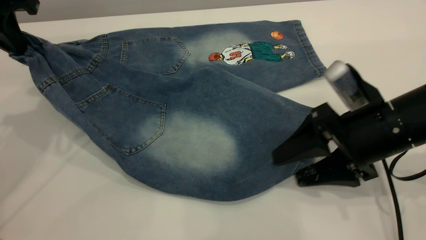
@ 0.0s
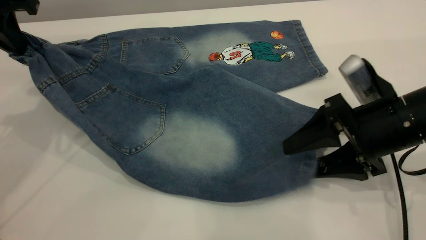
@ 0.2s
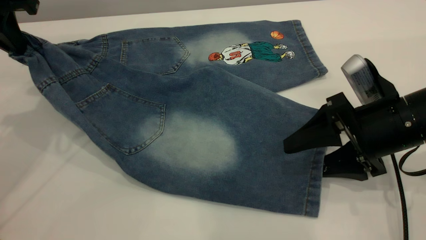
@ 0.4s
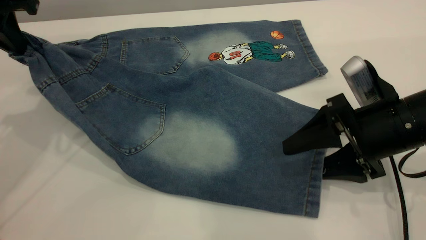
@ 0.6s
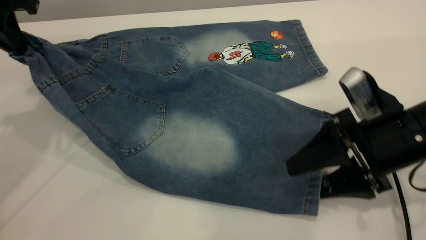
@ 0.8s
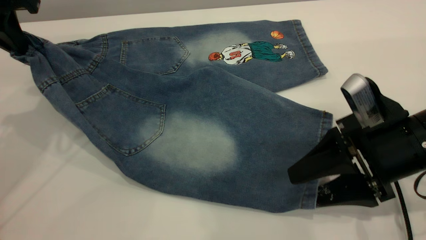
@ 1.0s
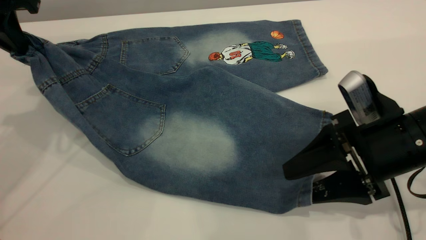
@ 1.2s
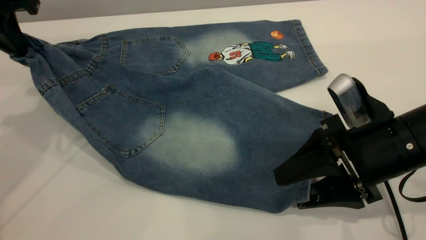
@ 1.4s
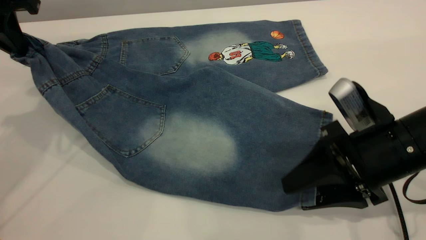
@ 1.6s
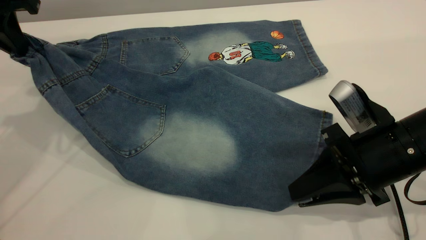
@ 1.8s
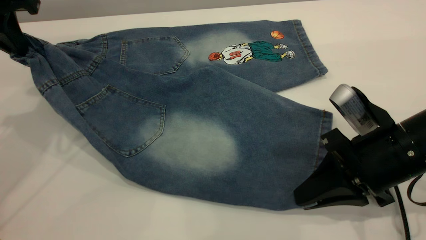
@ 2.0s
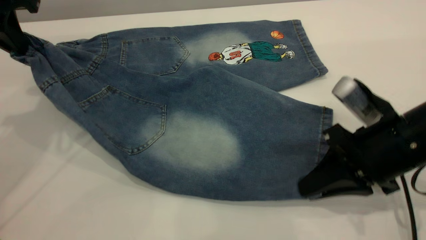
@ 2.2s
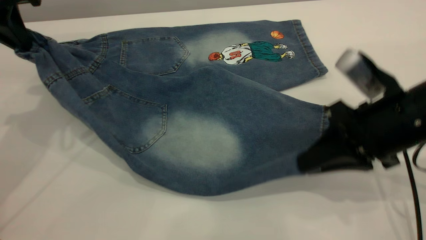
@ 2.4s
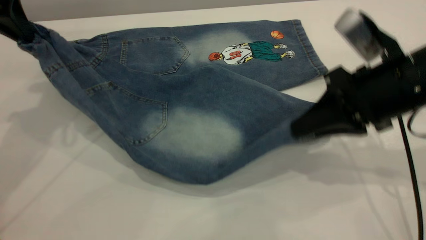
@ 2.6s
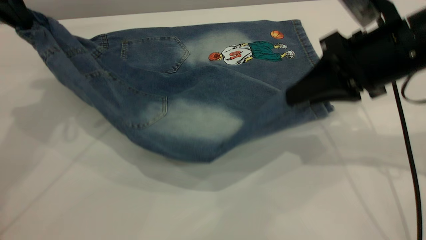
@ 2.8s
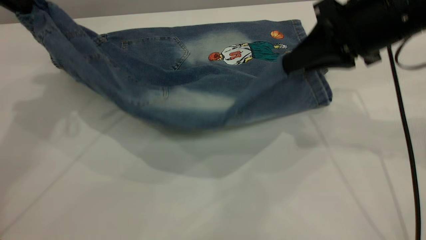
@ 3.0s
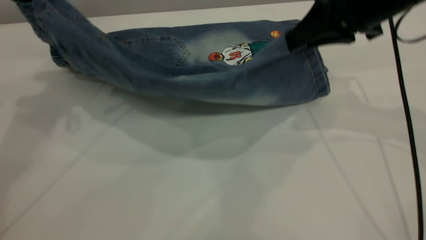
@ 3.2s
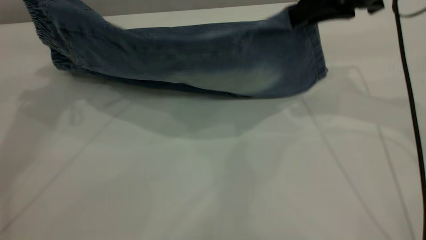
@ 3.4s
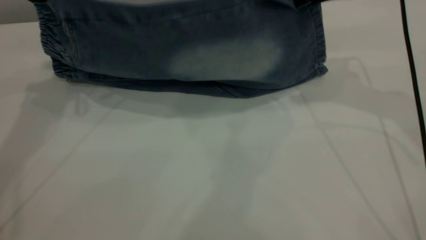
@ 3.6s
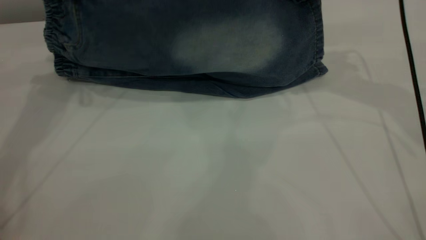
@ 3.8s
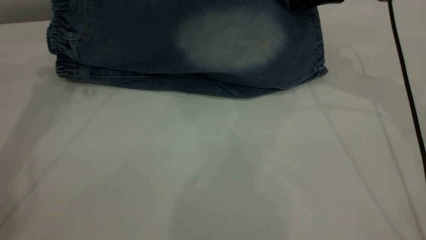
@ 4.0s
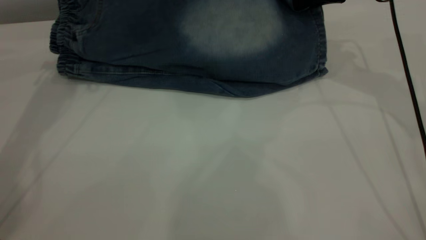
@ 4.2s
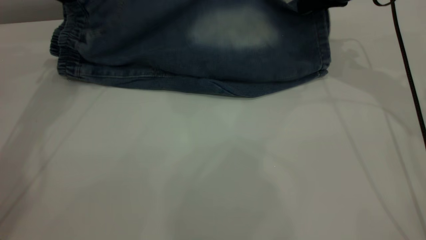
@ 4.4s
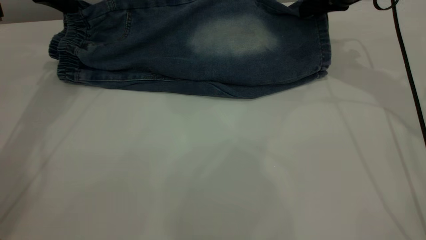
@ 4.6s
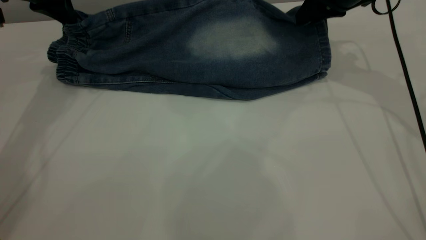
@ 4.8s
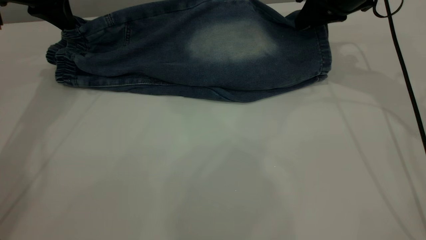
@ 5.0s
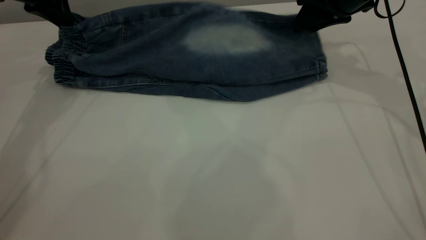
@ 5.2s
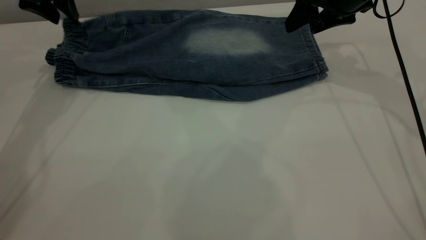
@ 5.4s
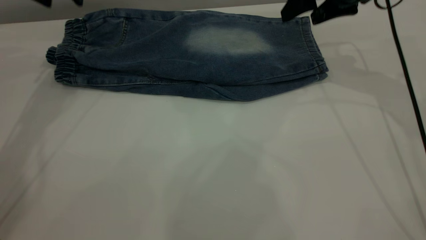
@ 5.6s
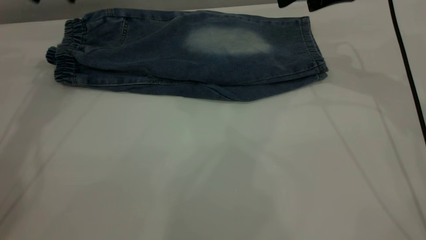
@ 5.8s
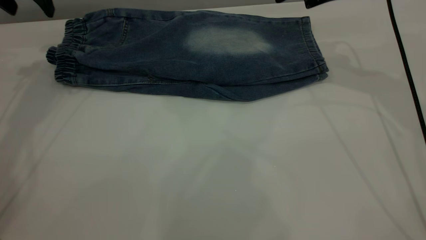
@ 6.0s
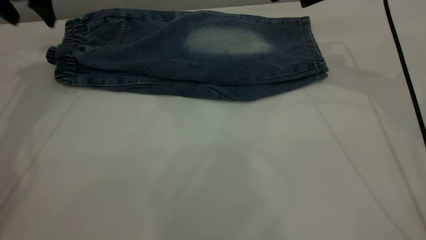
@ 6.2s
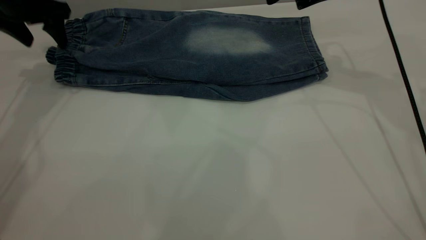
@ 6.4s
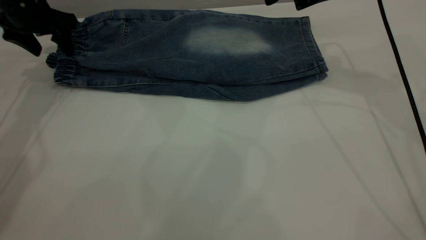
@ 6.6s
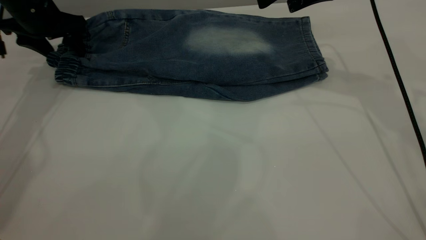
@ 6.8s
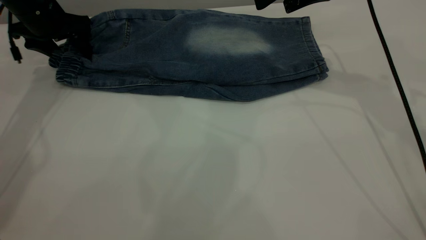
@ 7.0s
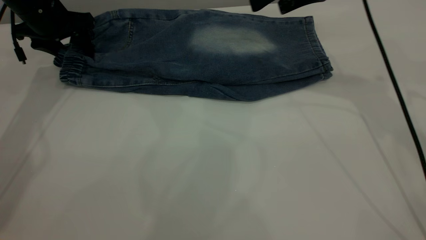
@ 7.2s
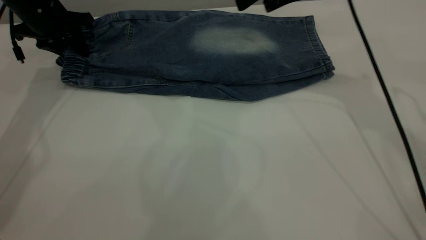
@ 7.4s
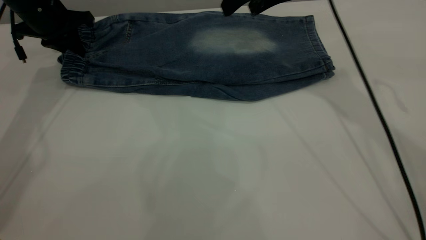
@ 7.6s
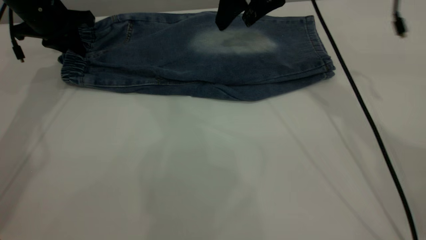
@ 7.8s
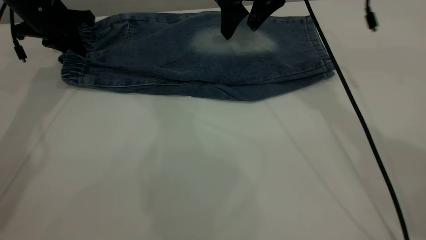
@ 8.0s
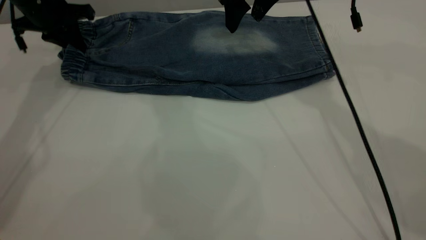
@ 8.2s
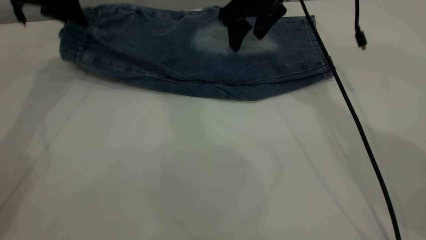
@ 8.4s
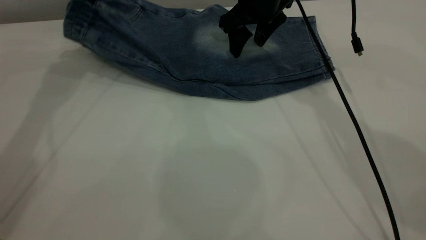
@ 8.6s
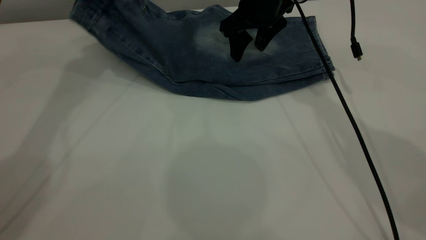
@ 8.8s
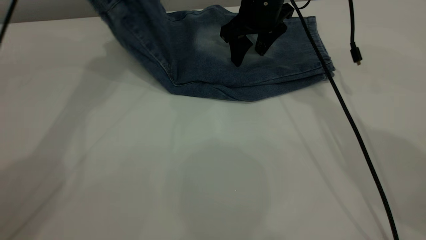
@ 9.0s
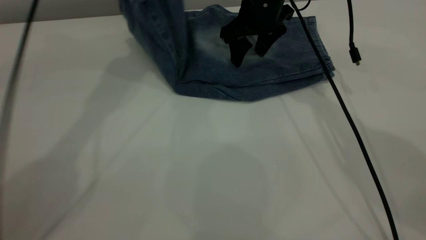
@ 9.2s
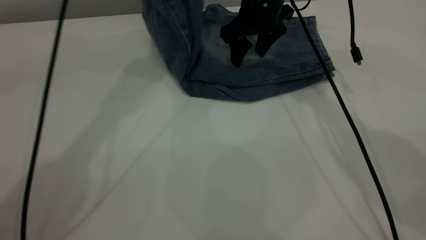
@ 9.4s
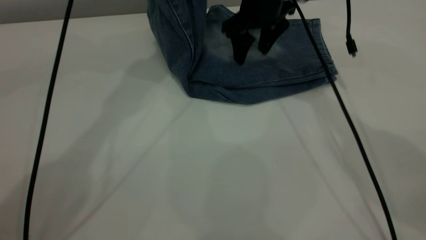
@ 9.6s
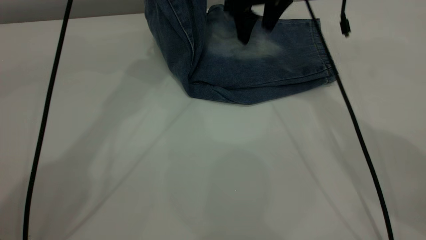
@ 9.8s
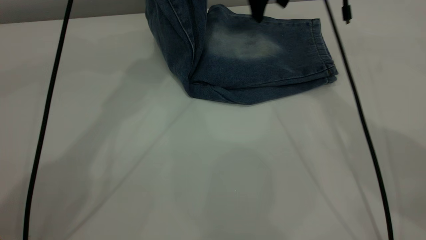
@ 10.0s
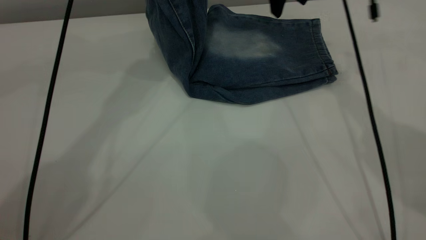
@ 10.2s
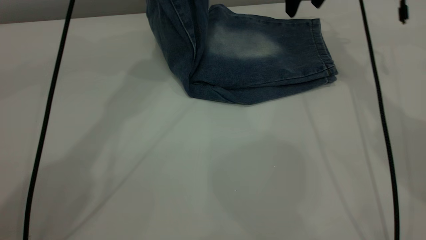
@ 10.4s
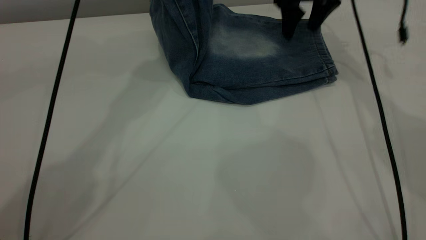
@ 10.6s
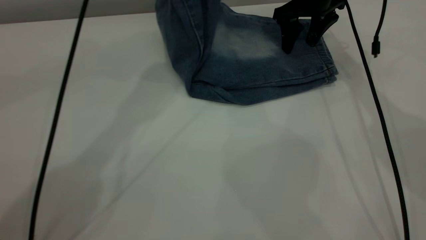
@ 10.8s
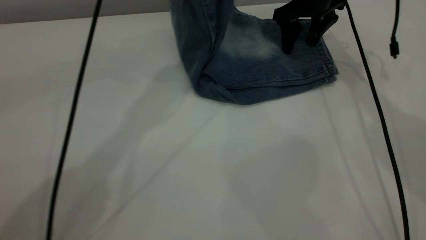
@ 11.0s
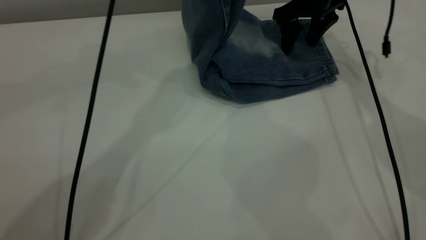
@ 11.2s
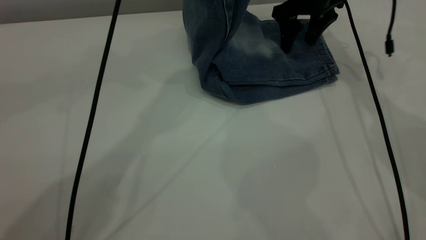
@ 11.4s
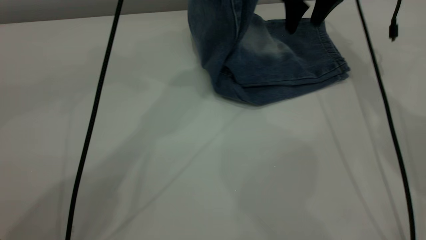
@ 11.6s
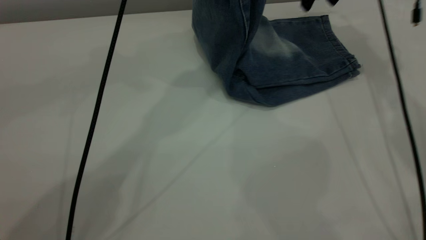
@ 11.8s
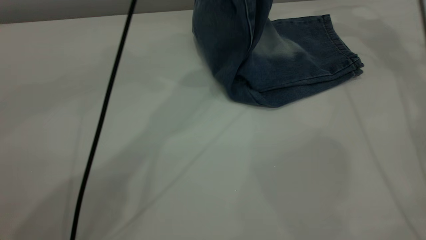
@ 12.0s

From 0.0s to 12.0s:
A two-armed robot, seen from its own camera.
Step, from 0.0s to 5.8s: Fold the bottom of the pants upward.
From 0.0s to 1.6s: The right gripper closes its fingers.
From 1.6s to 3.0s: The right gripper shifts roughly 15 cm upward and forward, and closes up.
From 3.0s to 4.4s: The right gripper goes approximately 15 cm forward; the left gripper moves forward and downward, approximately 15 cm.
From 4.4s to 6.0s: The left gripper opens up; the right gripper opens.
From 6.0s to 7.6s: The left gripper heads downward, covering some 10 cm, and closes up. The right gripper shifts some 10 cm to the left.
From 7.6s to 9.0s: The right gripper shifts approximately 5 cm downward. Meanwhile the left gripper moves upward and to the right, some 20 cm.
From 9.0s to 10.4s: The left gripper is displaced to the right by roughly 10 cm. The right gripper is displaced to the right and upward by roughly 10 cm.
From 10.4s to 12.0s: The left gripper travels to the right by approximately 10 cm. Meanwhile the right gripper heads to the right and upward, covering roughly 10 cm.

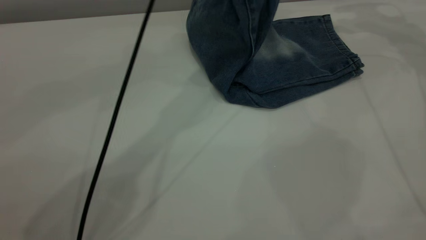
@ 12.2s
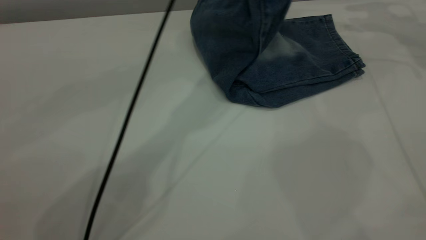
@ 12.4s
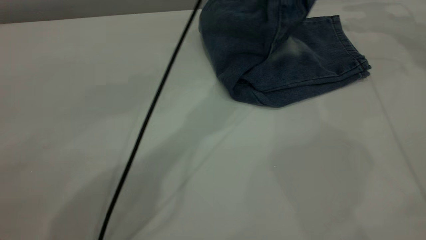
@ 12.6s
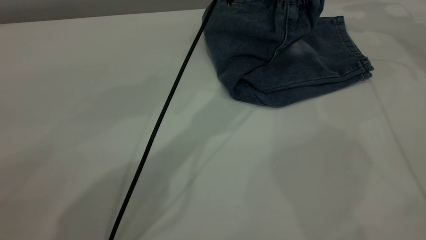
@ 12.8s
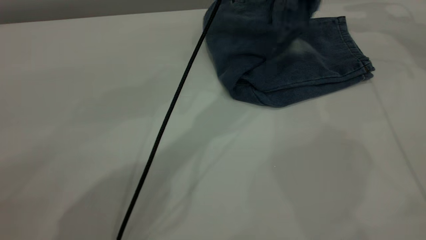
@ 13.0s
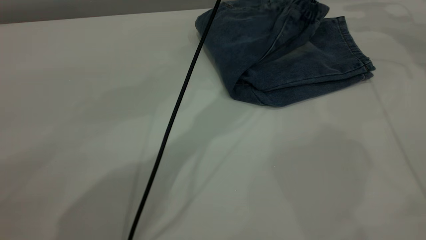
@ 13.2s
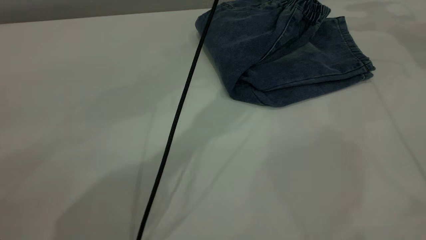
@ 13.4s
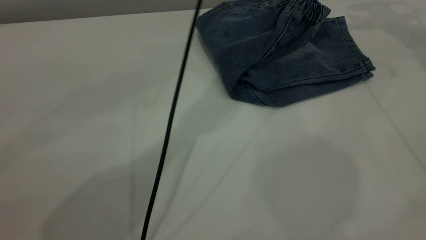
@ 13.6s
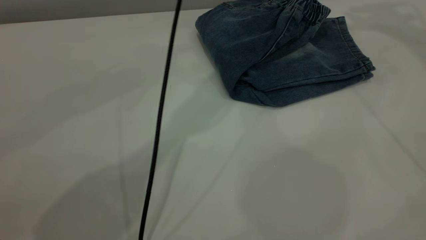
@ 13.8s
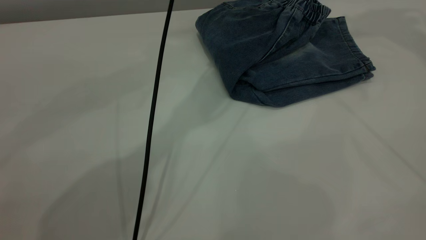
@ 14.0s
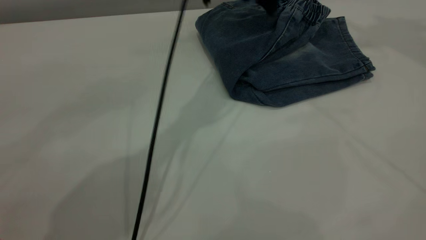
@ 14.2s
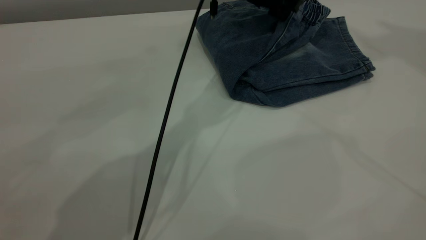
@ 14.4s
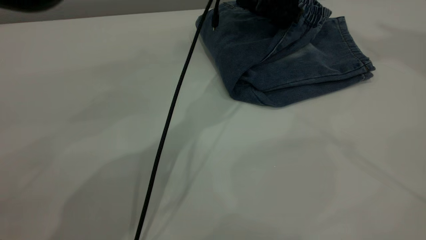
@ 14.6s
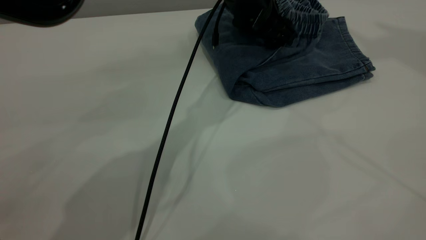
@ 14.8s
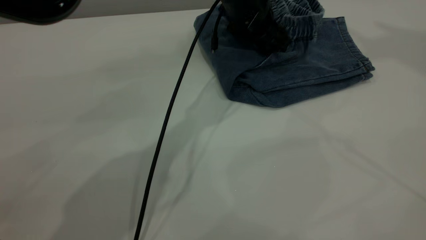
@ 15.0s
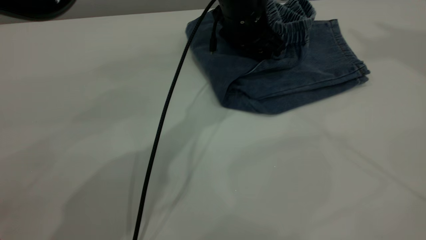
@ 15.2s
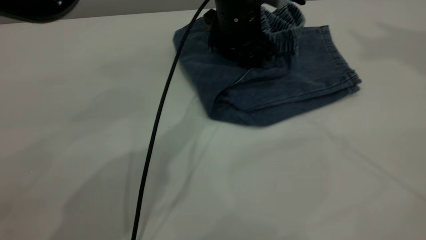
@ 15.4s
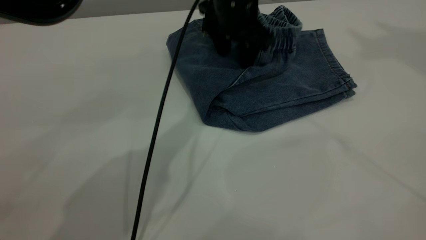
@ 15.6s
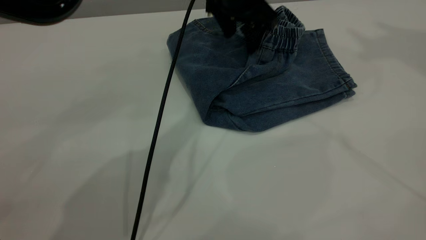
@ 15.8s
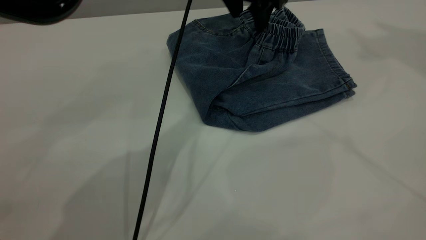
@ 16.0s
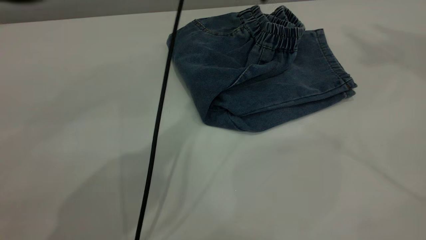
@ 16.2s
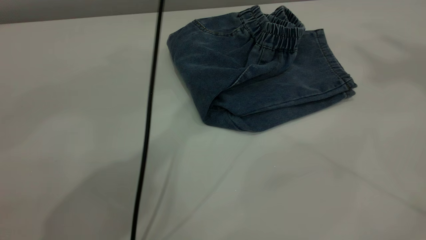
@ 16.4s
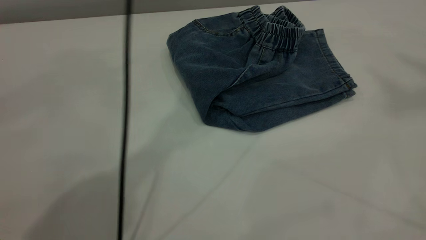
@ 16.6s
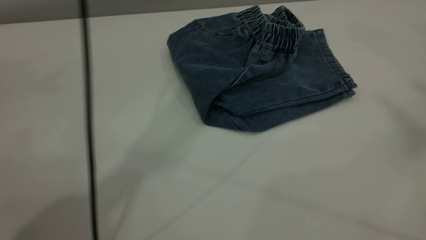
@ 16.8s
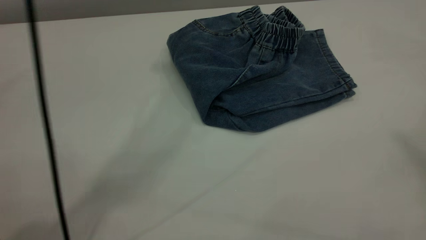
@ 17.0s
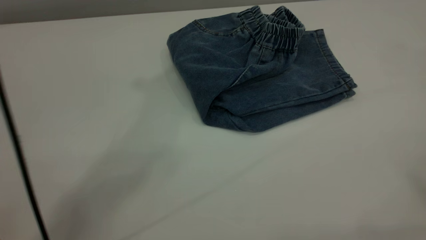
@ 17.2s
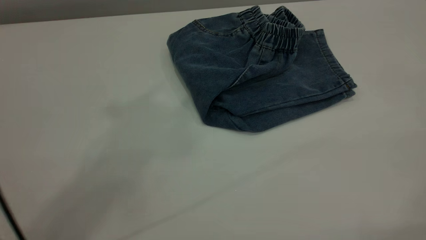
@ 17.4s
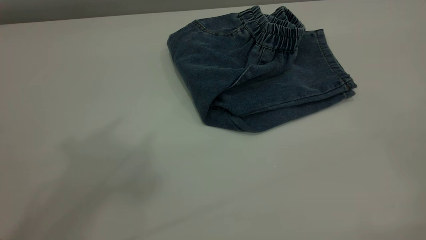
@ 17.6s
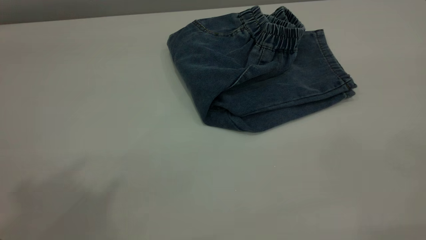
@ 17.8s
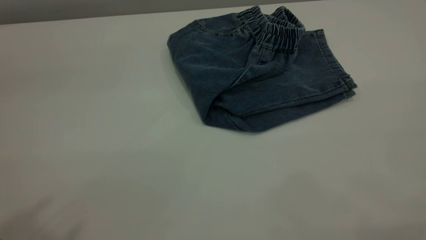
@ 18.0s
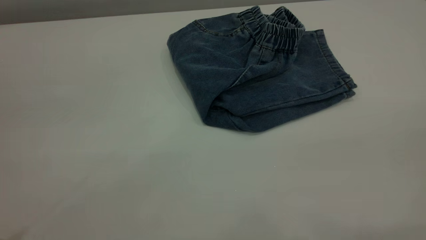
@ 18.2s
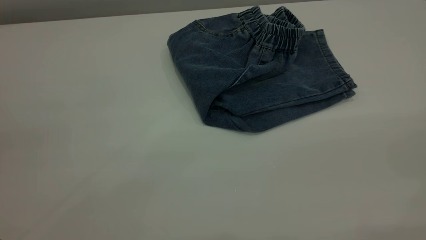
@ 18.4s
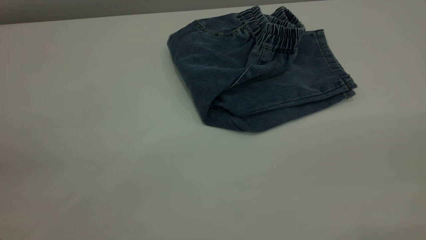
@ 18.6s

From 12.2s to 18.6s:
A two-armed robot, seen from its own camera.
From 12.2s to 13.8s: The left gripper opens up. The right gripper moves upward, some 15 cm.
From 13.8s to 15.4s: The right gripper moves upward and backward, about 20 cm. Meanwhile the left gripper is displaced downward by roughly 15 cm.
From 15.4s to 17.0s: The left gripper is displaced upward by about 40 cm, while the right gripper shifts approximately 25 cm backward and upward.
From 17.0s to 18.6s: The left gripper goes some 40 cm backward, to the left and downward.
